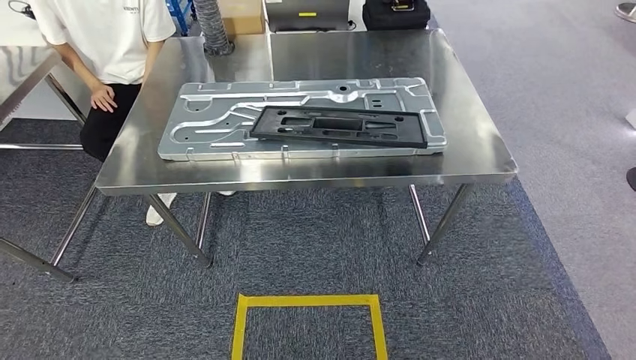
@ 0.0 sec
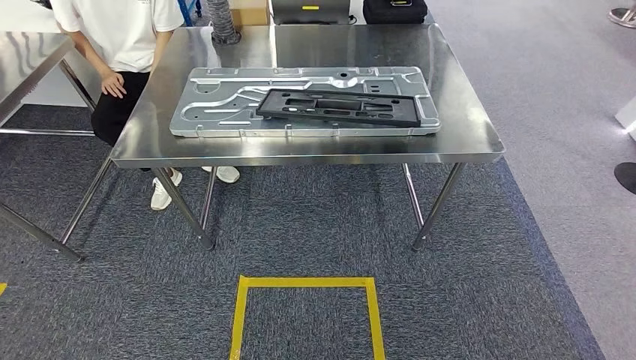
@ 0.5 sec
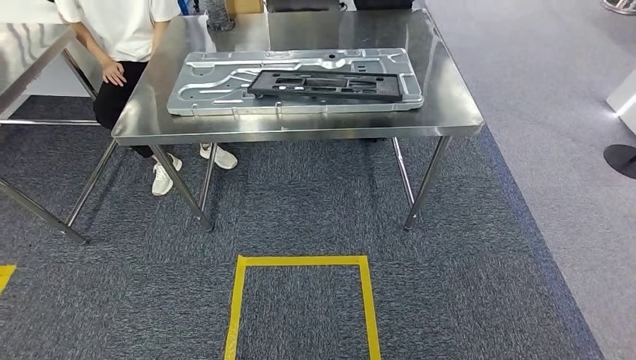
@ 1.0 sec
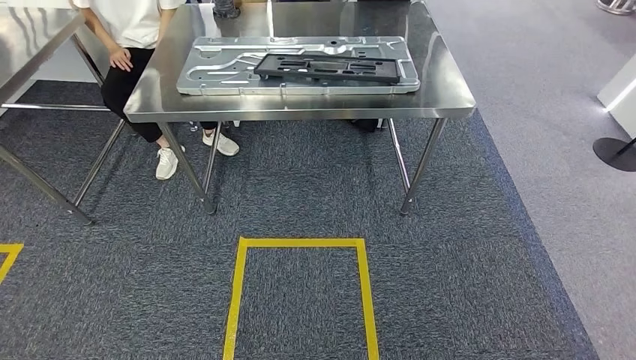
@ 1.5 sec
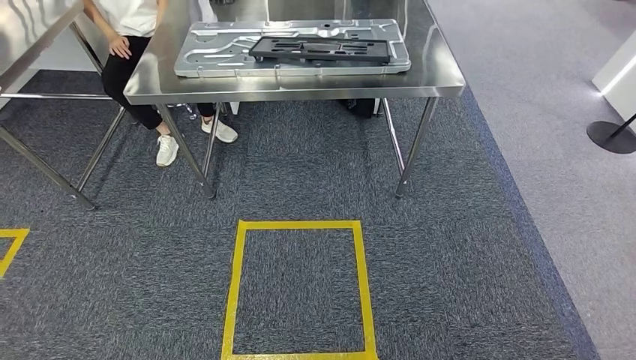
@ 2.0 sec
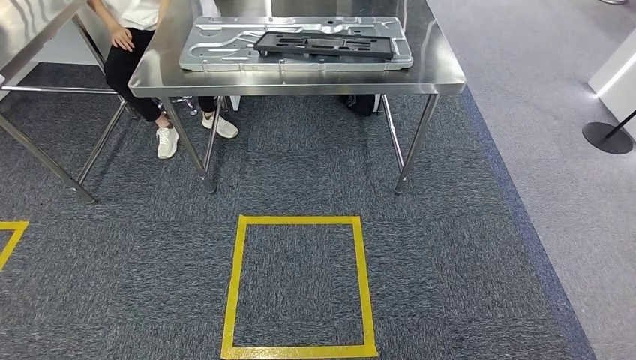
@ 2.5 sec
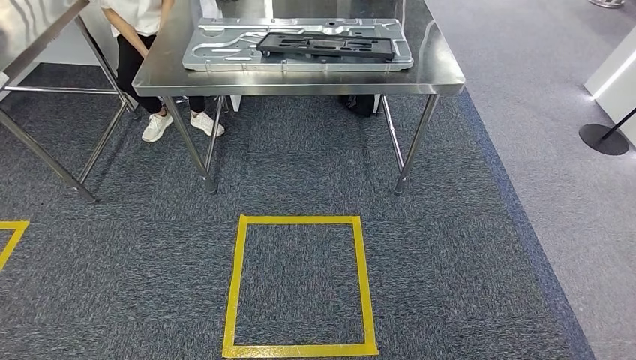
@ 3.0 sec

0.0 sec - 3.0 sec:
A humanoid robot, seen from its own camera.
Step, 0.0 sec - 3.0 sec: Move to the initial position of the shelf.
